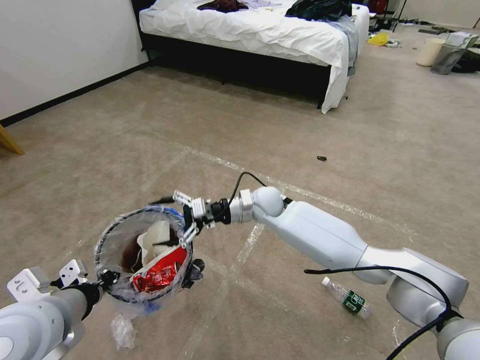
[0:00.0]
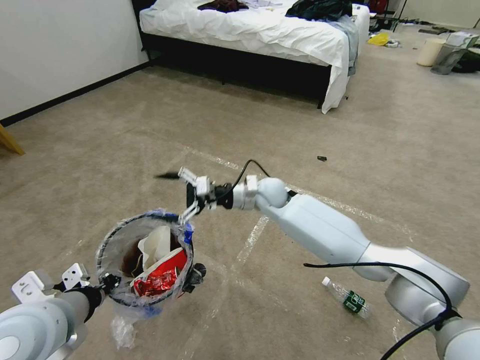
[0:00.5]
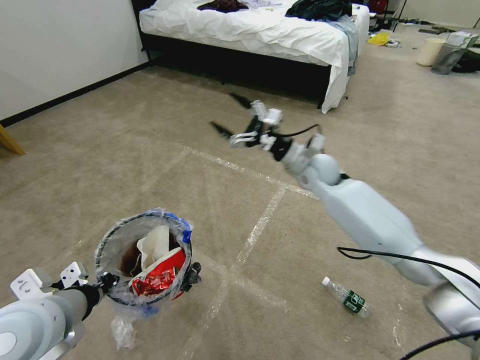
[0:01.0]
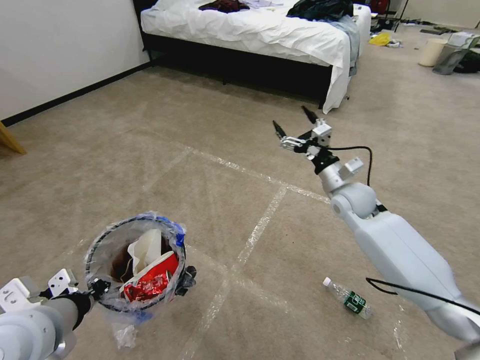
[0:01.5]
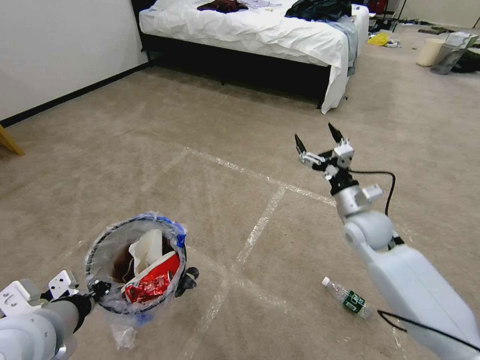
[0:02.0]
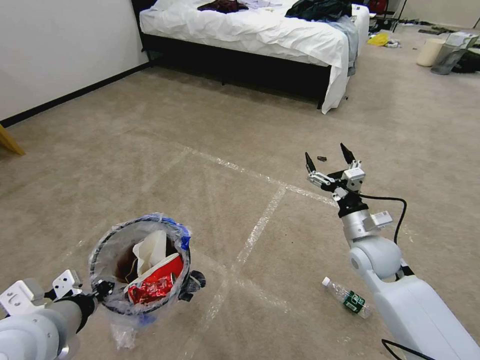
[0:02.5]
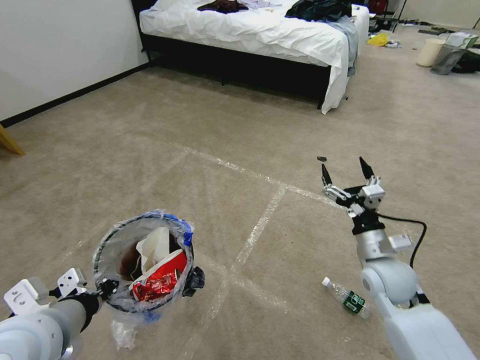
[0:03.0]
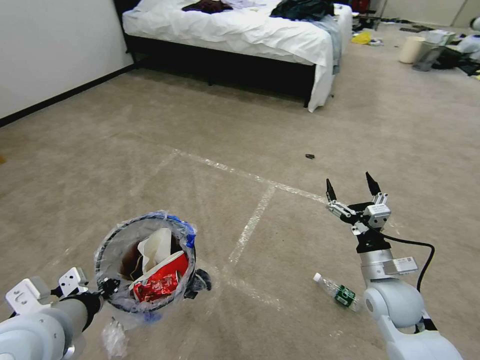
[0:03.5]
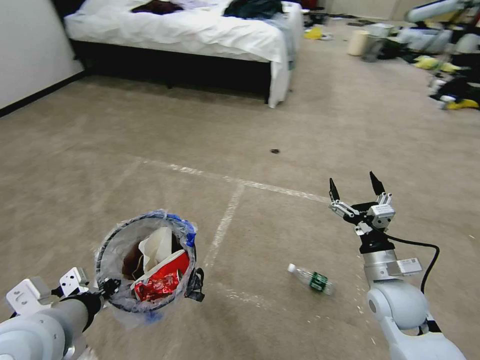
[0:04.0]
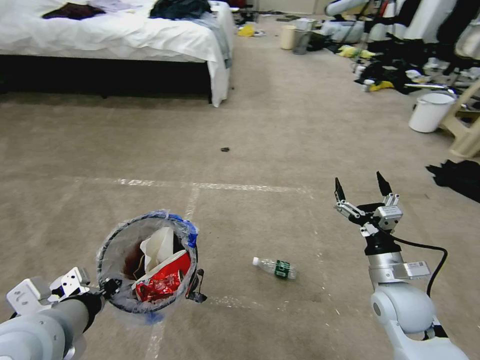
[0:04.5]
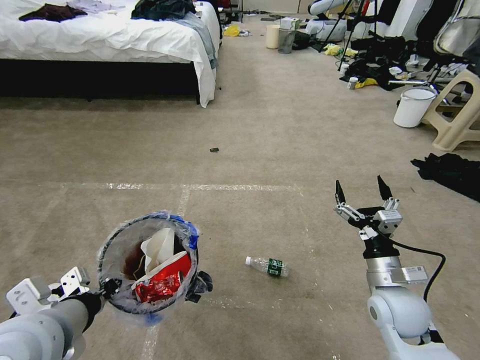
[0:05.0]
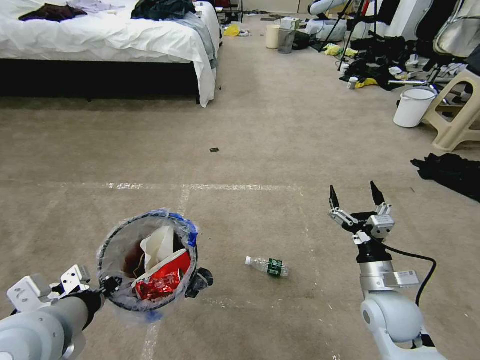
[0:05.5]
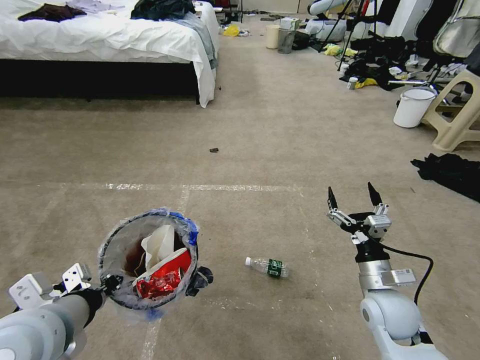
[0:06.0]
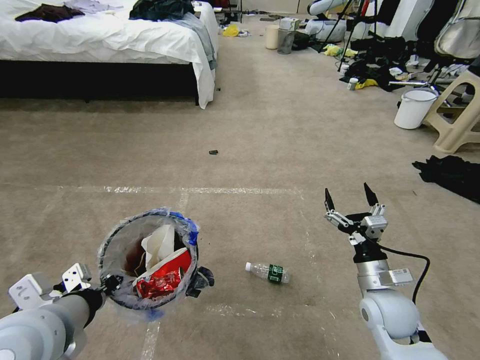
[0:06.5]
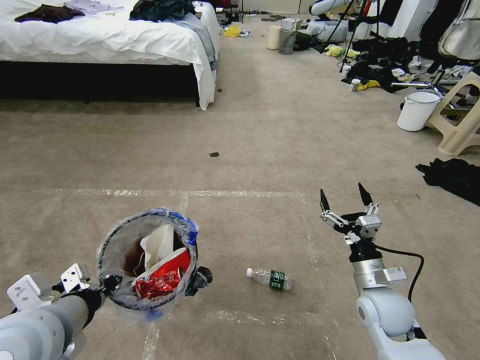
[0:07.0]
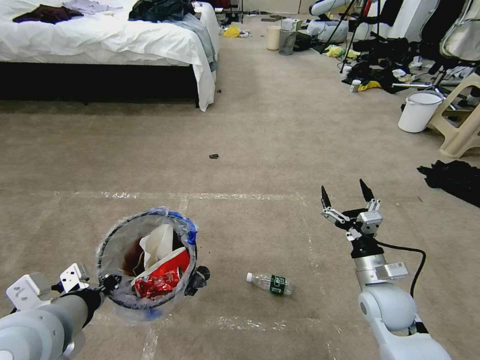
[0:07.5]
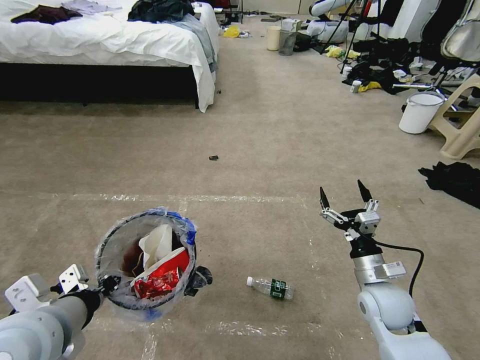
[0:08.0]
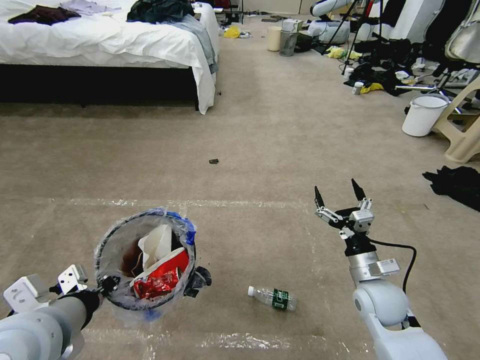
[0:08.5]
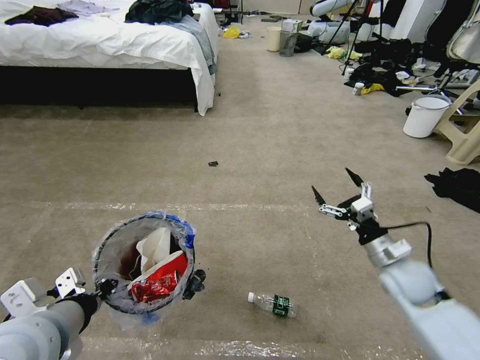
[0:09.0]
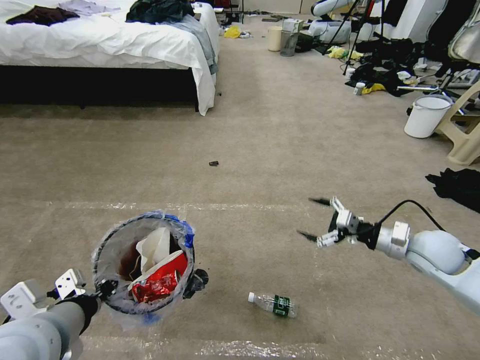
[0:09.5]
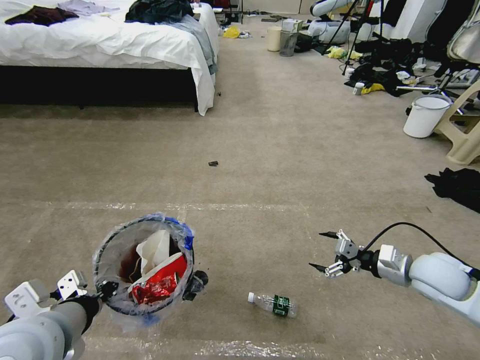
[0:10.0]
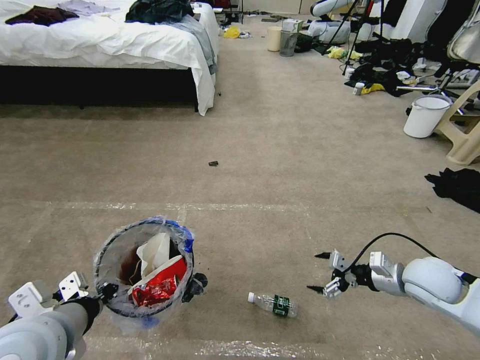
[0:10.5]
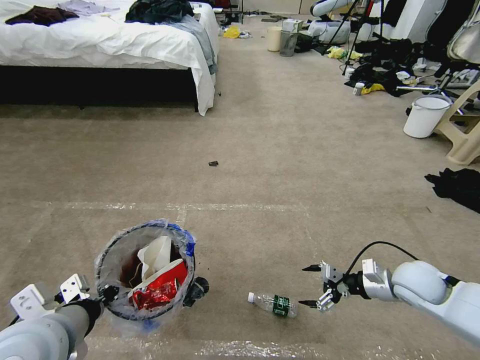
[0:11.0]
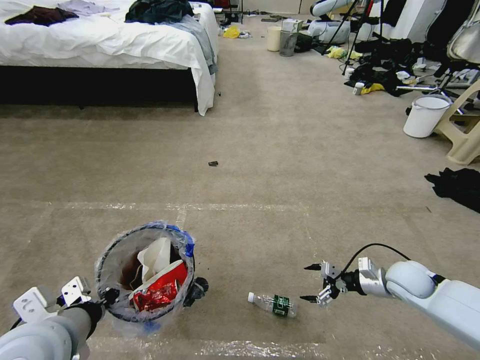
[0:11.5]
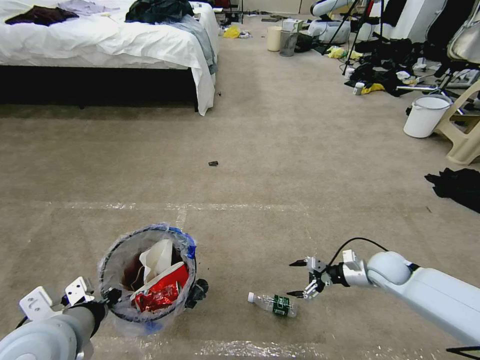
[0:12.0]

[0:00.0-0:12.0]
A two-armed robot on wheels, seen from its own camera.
Task of the whole recording: Pick up the trash bin and place the garbage on the floor into it.
0.0 to 2.0 s: The right gripper goes roughly 25 cm to the right and backward.
2.0 to 4.0 s: The right gripper moves backward, some 15 cm.
6.0 to 8.0 s: The grippers stay close to where they were, moving slightly.
8.0 to 10.0 s: The right gripper moves to the right and upward, some 10 cm.
10.0 to 12.0 s: The right gripper is displaced downward and forward by about 10 cm.

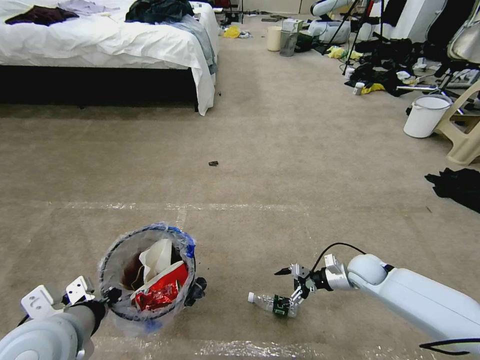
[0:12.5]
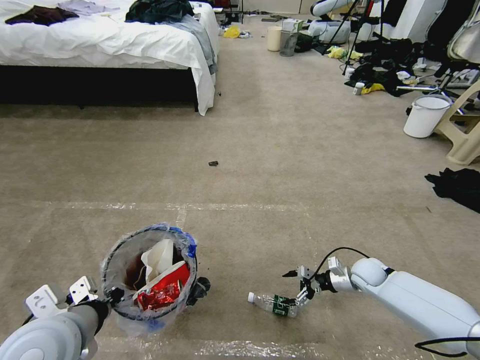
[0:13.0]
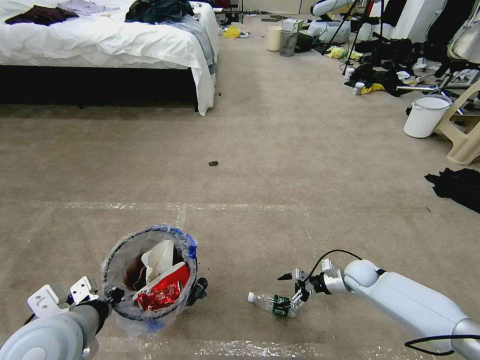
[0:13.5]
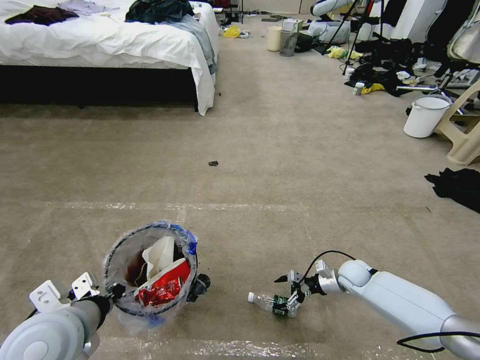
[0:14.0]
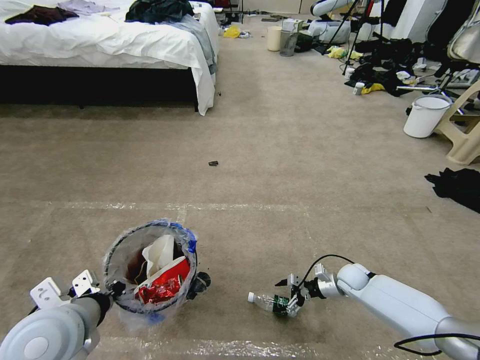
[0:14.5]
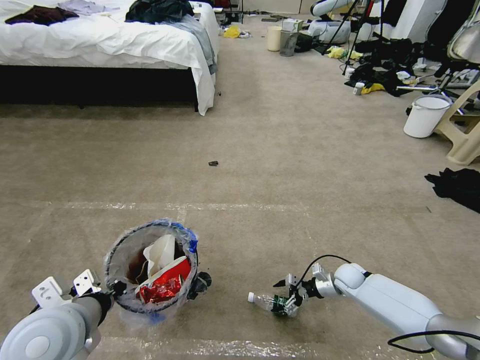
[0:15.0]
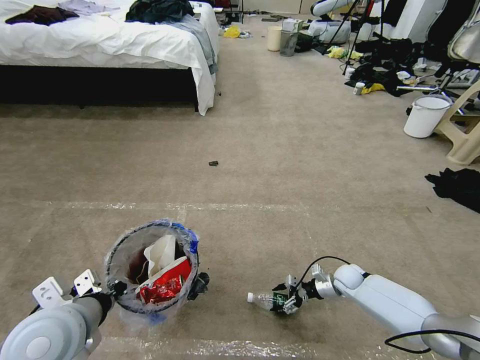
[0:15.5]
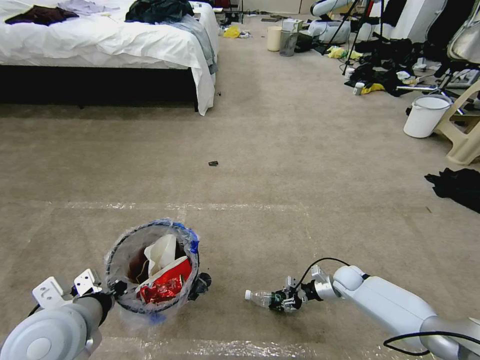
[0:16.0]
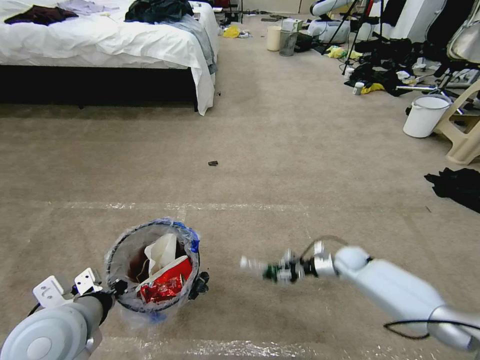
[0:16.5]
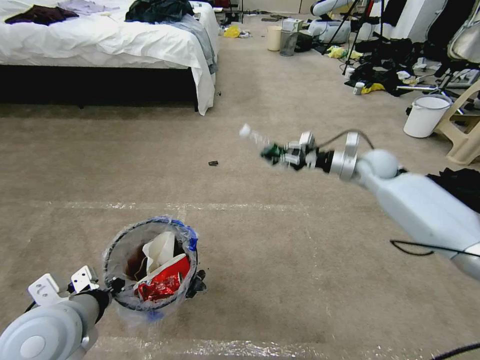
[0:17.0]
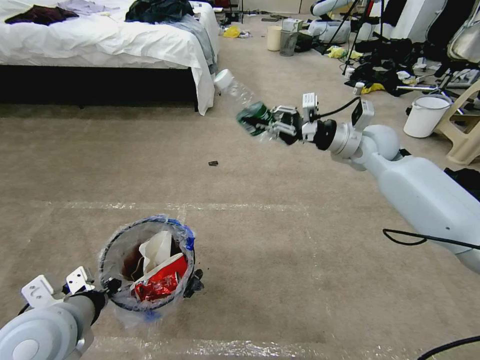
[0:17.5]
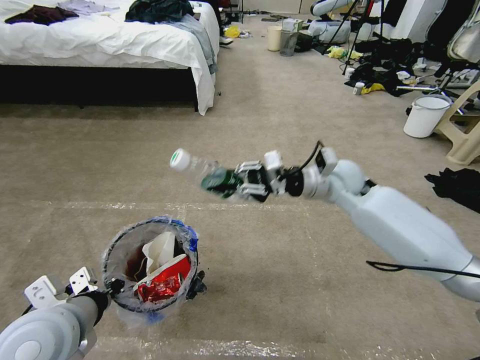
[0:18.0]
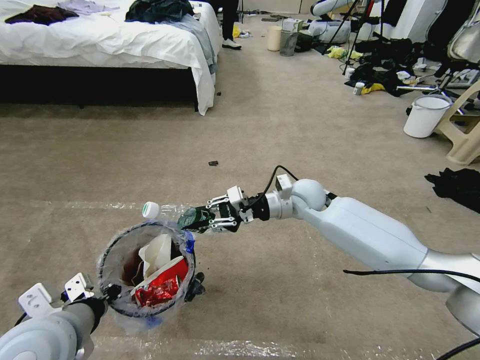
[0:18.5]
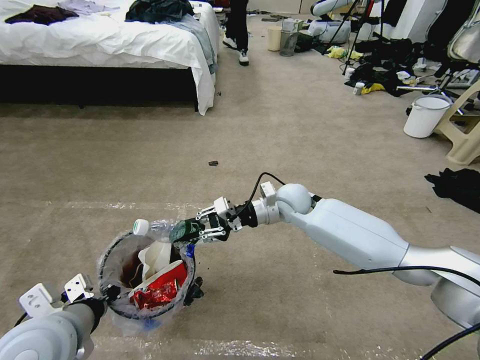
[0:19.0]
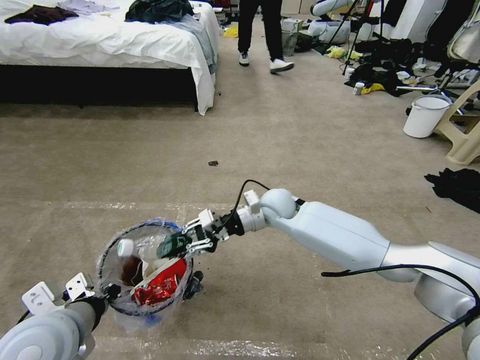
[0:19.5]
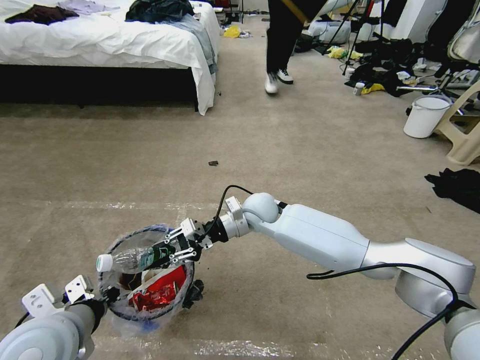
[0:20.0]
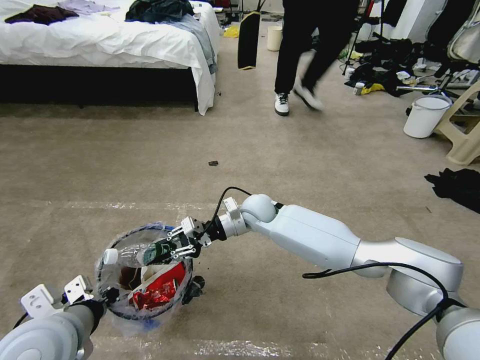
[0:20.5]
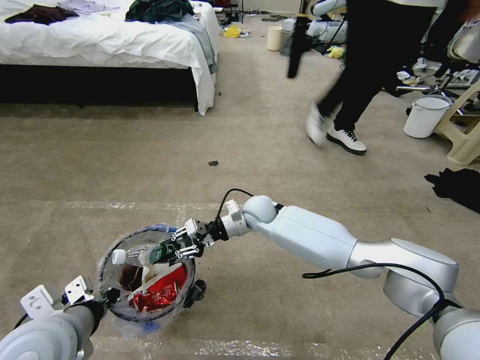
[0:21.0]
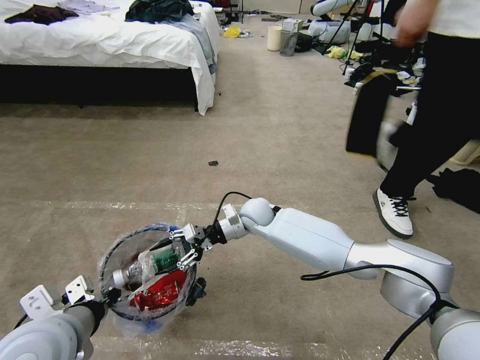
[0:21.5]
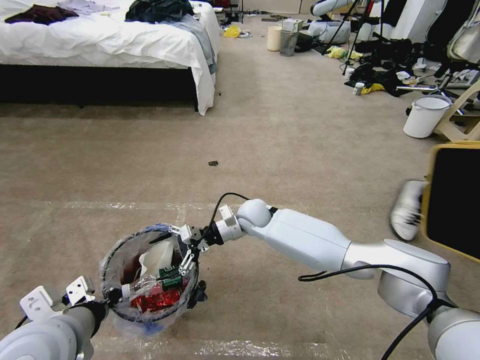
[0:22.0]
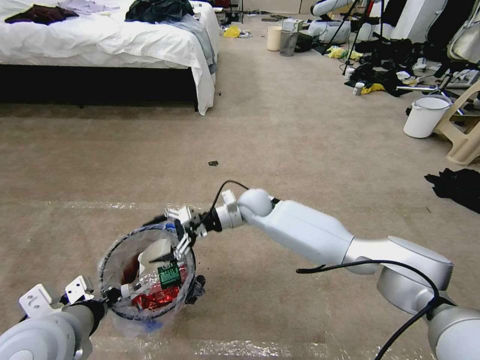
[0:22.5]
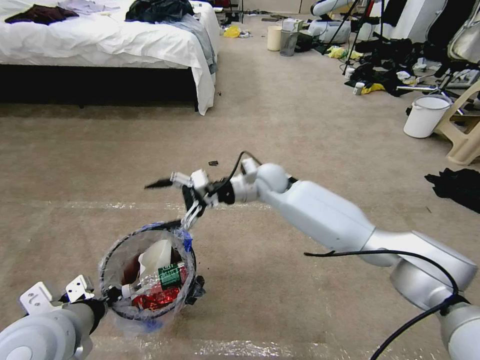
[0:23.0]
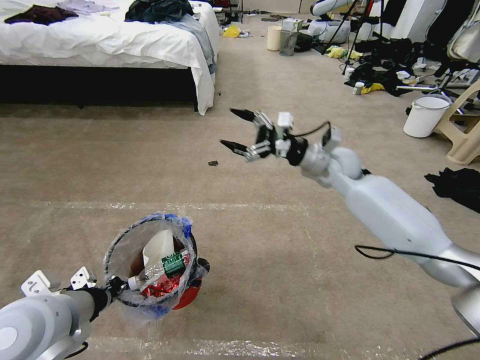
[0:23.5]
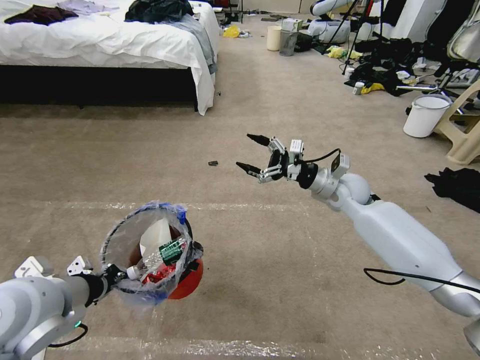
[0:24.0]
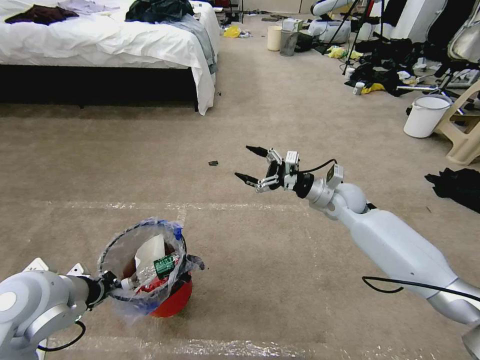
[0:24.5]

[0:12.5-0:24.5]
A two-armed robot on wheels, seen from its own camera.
Task of the whole recording: Pick up the trash bin and place the garbage on the floor into it.
12.5 to 14.5 s: The right gripper travels downward by some 10 cm.
14.5 to 16.5 s: The right gripper closes its fingers.
16.5 to 18.5 s: The right gripper is displaced upward and to the left by some 30 cm.
18.5 to 20.5 s: The right gripper travels to the left and downward by some 15 cm.
20.5 to 22.5 s: The right gripper opens.
22.5 to 24.5 s: The left gripper goes some 5 cm forward. The right gripper heads to the right, covering roughly 25 cm.

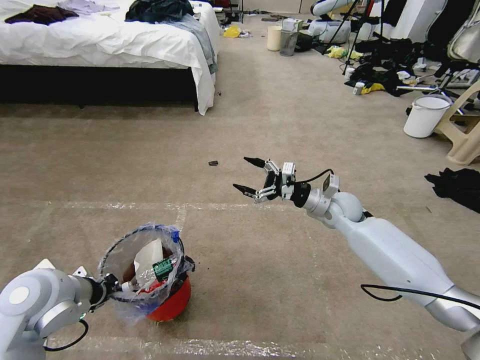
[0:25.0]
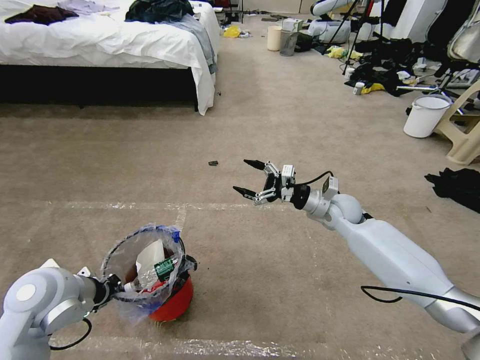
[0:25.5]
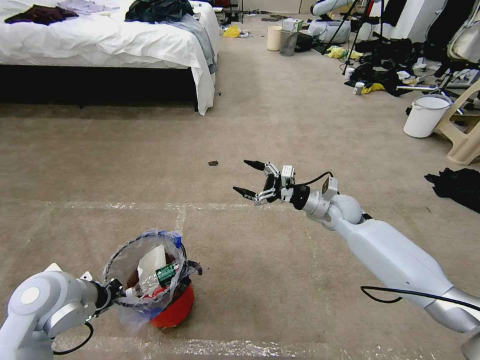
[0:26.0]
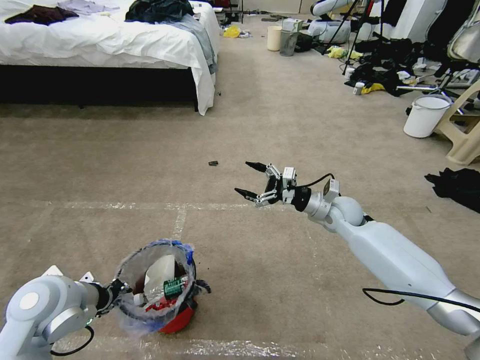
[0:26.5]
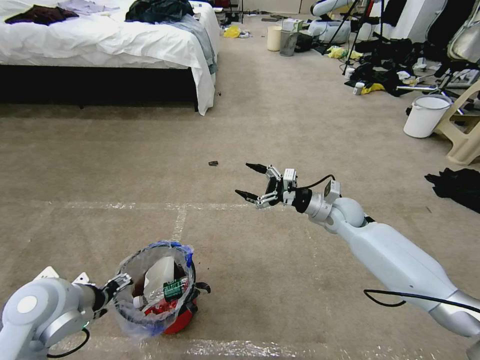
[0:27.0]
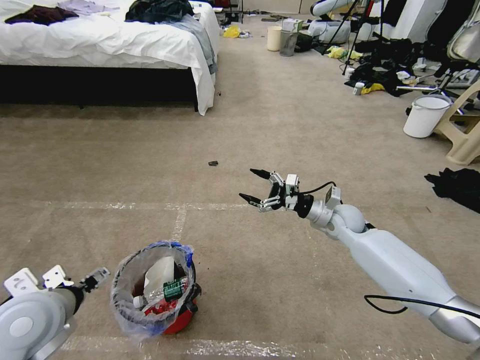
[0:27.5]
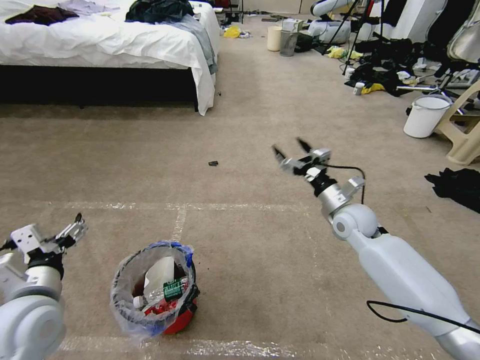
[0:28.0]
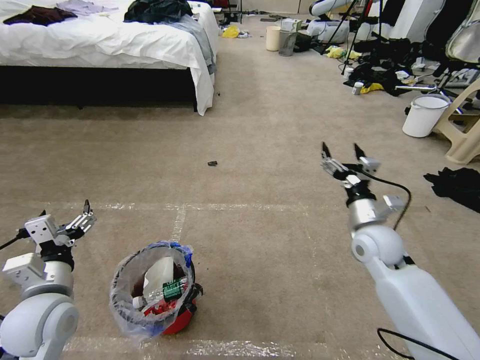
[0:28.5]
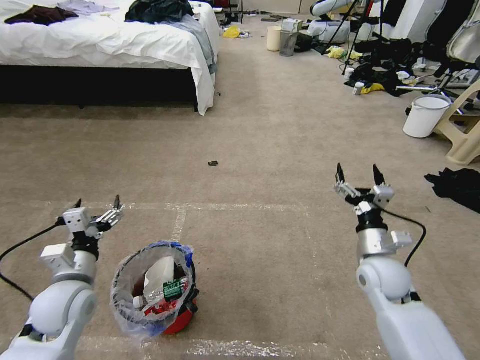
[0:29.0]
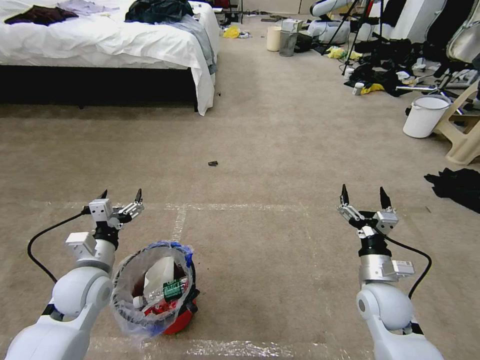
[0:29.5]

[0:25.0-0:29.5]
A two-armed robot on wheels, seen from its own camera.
Task of the whole recording: Pick up the trash bin and place the garbage on the floor into it.
25.0 to 27.0 s: The left gripper opens up.
27.0 to 29.5 s: The left gripper shifts about 10 cm downward and forward; the right gripper shifts roughly 20 cm backward.
